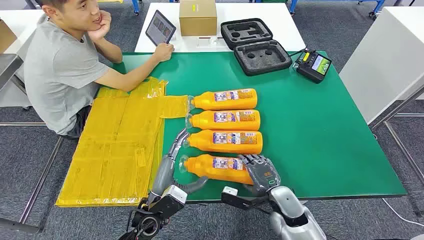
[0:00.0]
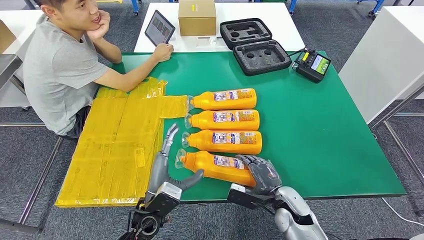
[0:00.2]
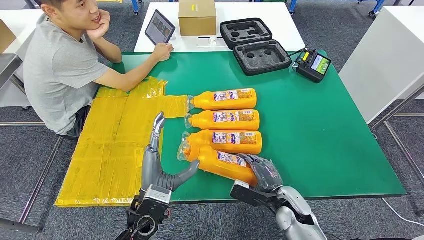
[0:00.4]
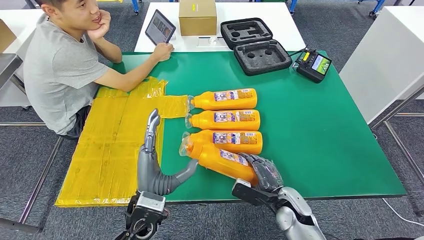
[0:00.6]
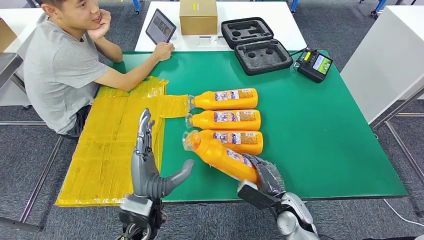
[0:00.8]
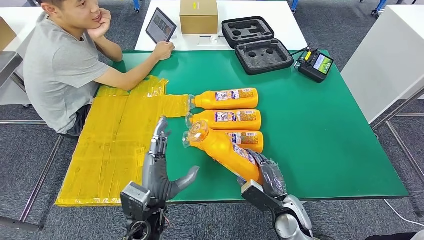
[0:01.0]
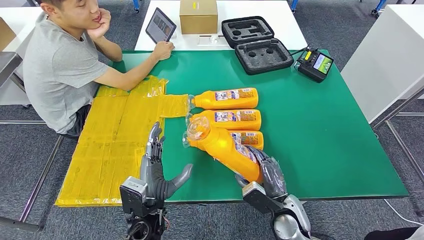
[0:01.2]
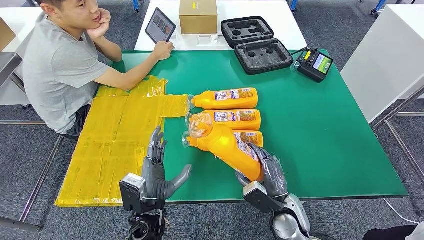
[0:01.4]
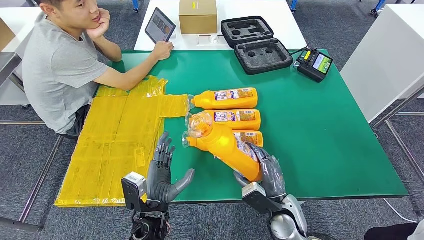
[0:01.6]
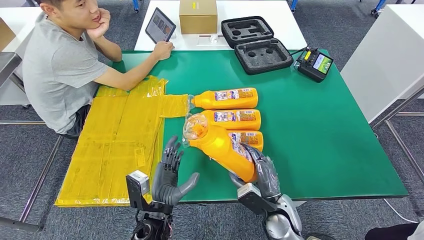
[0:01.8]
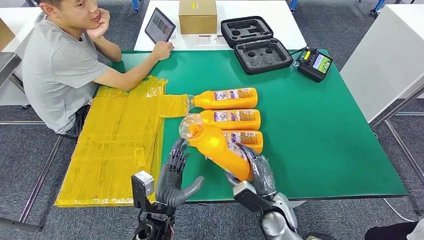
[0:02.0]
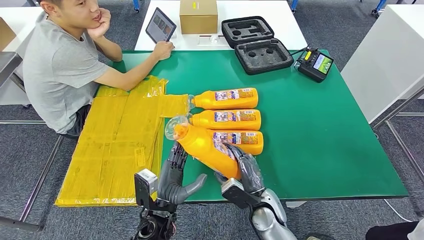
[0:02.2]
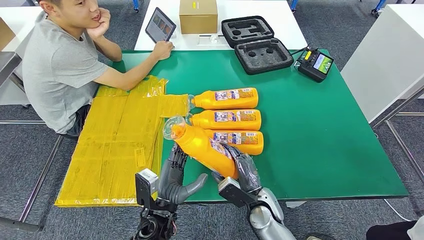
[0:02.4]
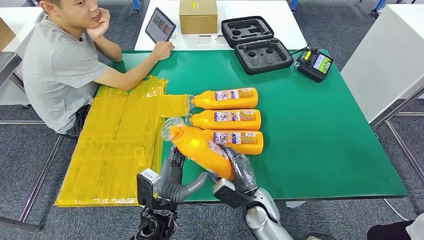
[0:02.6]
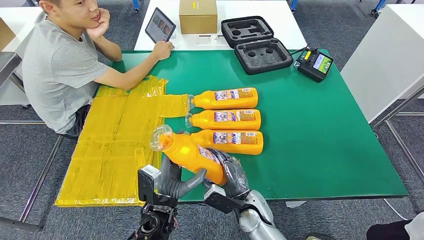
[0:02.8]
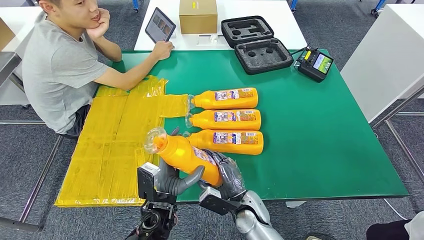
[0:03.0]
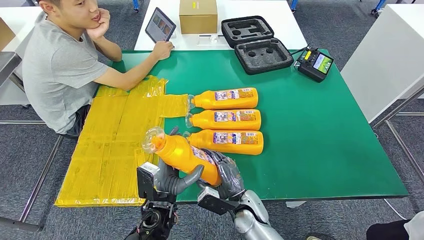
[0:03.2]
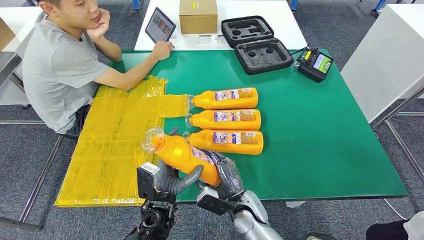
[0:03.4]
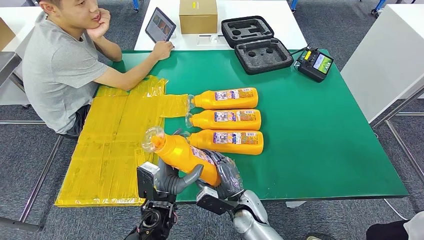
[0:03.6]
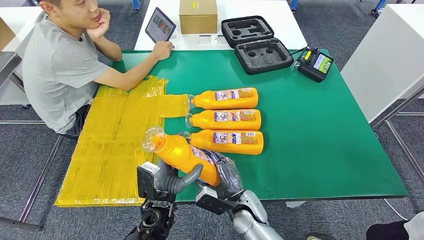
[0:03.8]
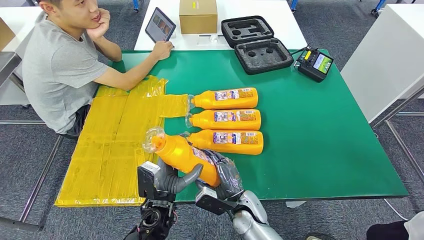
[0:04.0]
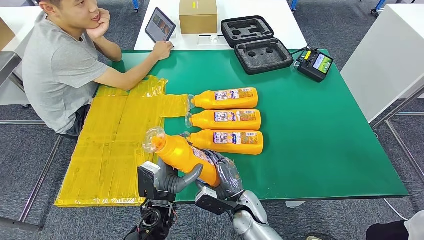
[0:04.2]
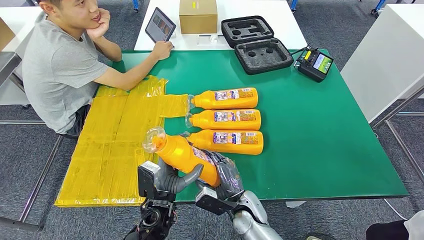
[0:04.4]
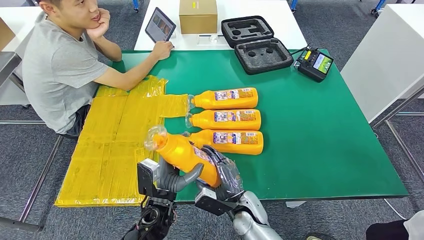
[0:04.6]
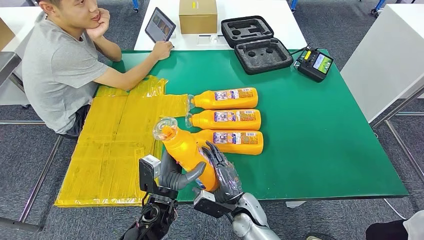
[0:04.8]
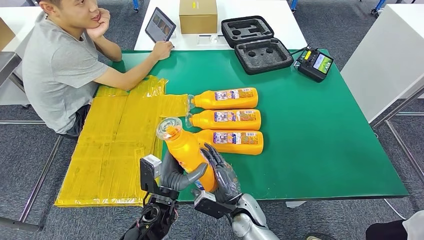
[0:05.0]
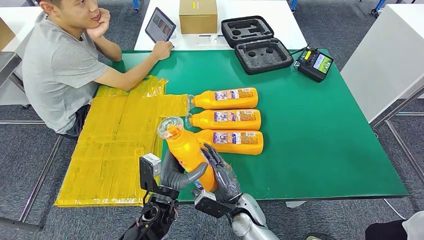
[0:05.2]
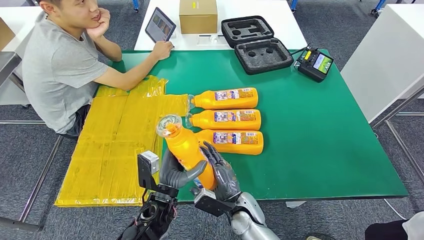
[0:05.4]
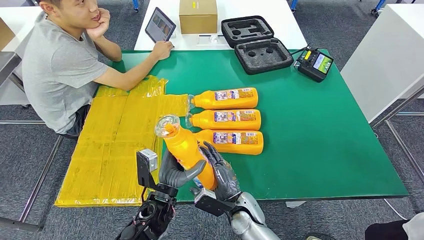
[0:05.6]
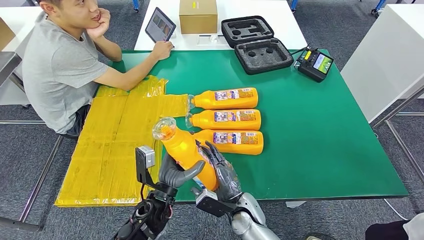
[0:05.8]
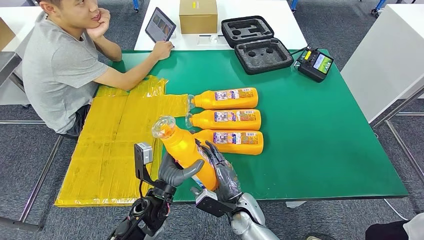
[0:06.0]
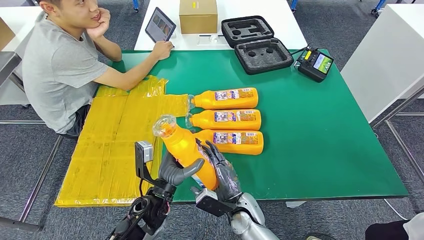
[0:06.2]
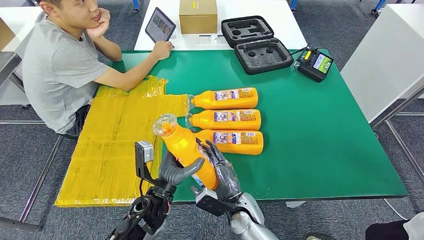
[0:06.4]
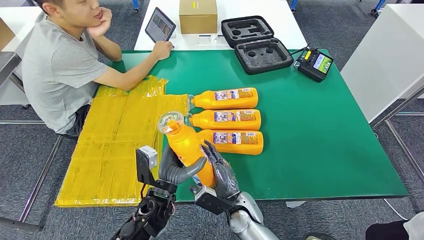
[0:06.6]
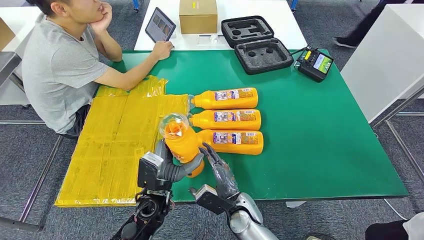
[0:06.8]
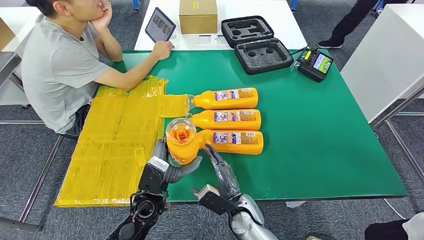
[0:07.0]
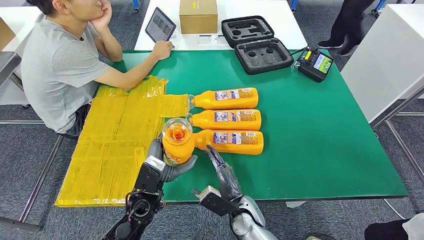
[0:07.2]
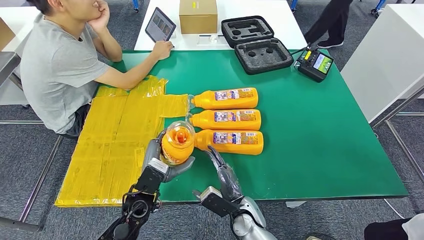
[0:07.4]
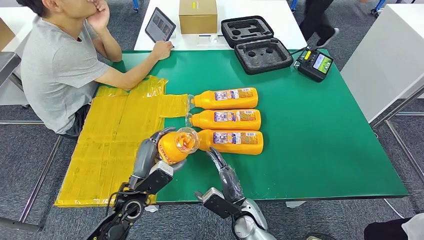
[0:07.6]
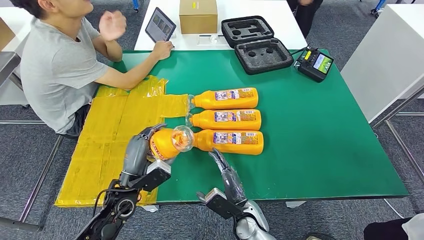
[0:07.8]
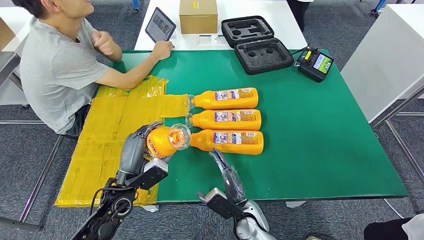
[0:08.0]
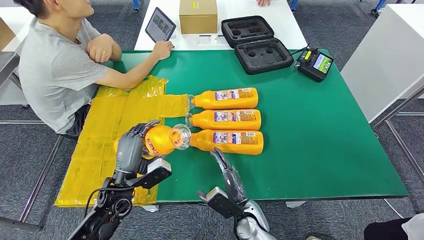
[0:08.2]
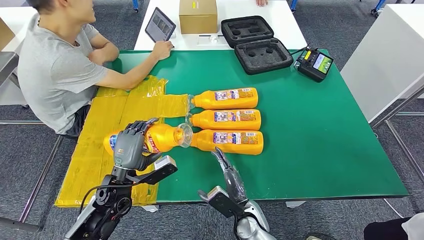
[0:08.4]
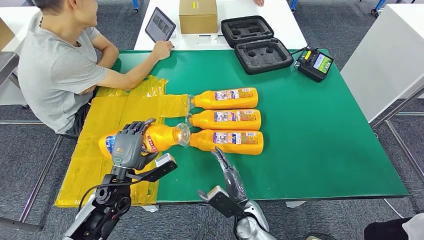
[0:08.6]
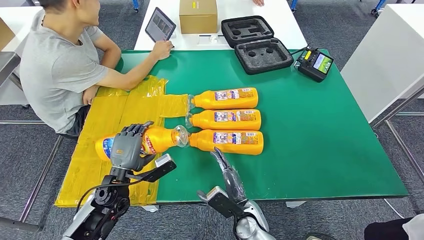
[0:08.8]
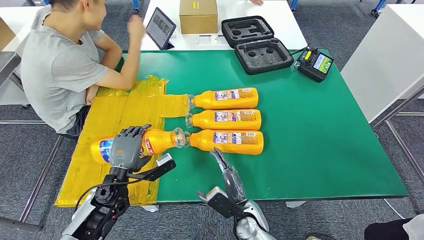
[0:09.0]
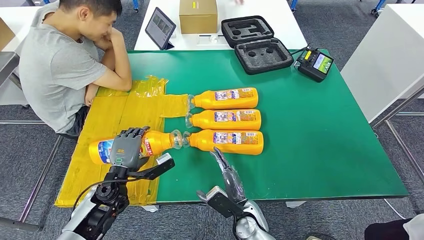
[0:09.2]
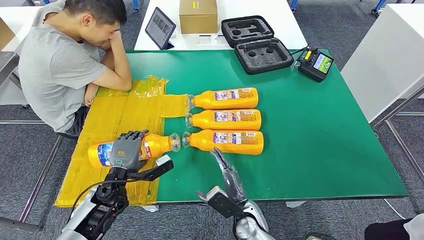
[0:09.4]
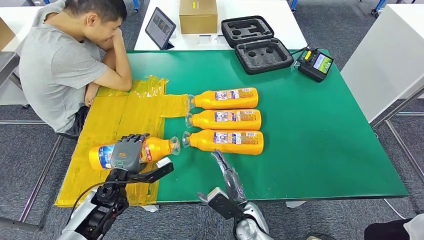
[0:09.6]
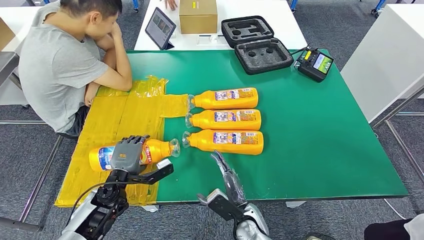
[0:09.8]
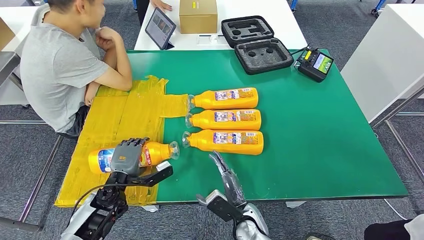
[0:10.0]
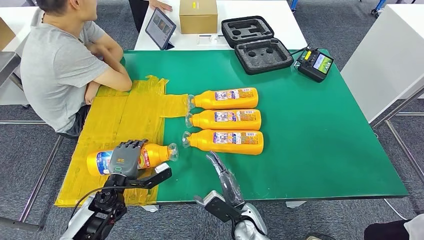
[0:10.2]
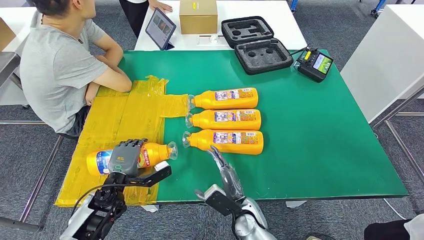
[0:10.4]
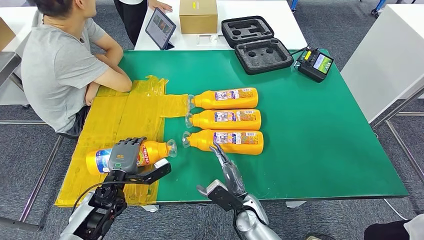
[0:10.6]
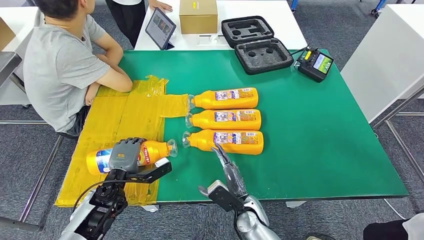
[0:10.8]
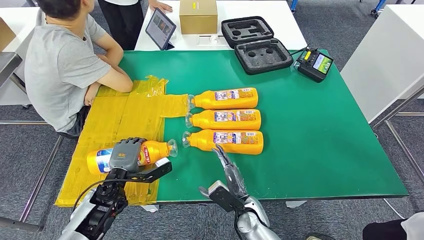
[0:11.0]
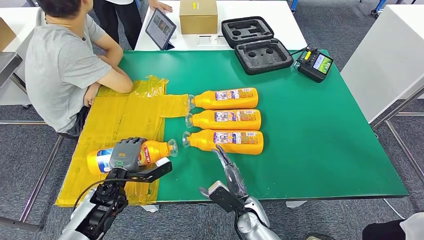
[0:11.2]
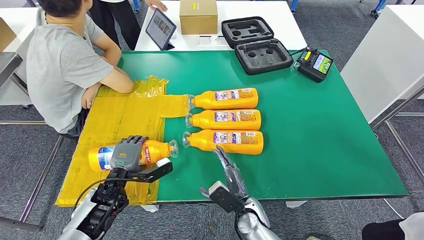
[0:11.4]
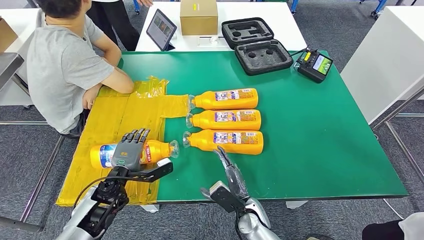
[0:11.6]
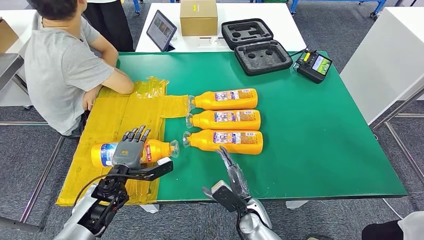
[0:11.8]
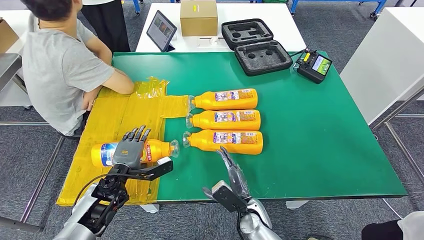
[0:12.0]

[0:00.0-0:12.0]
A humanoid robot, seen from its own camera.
Step, 0:00.0 to 0:03.4: Take the bottle from the table.
0:01.6 to 0:03.0: The right hand heads to the left, covering about 10 cm.
0:03.0 to 0:04.4: Neither hand changes place.
0:06.0 to 0:07.6: The left hand moves to the left, approximately 5 cm.
0:07.6 to 0:09.0: The left hand shifts roughly 5 cm to the left.
0:09.0 to 0:10.4: There are only small adjustments of the hands.

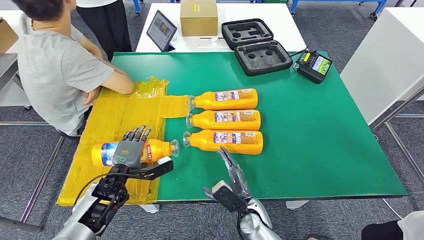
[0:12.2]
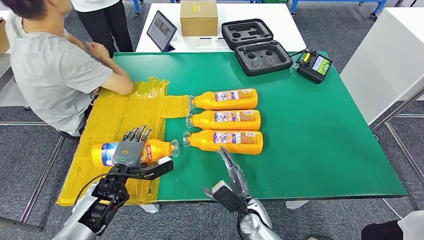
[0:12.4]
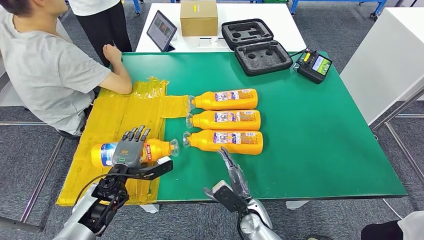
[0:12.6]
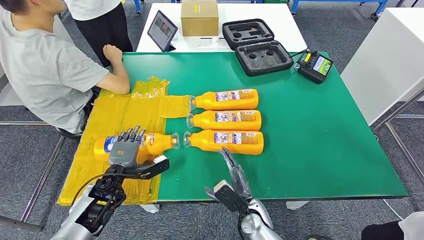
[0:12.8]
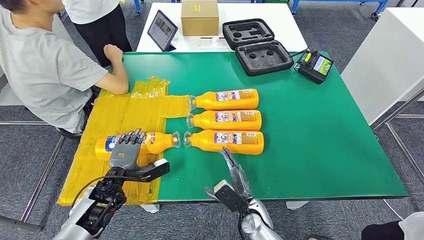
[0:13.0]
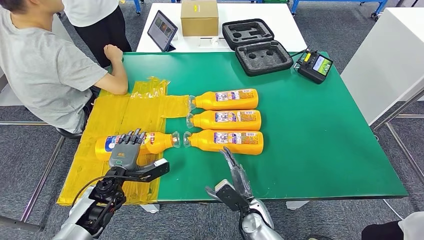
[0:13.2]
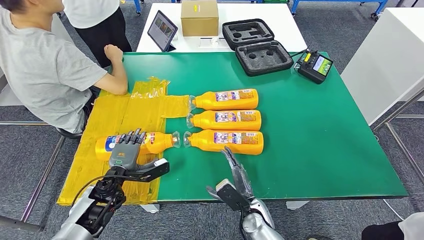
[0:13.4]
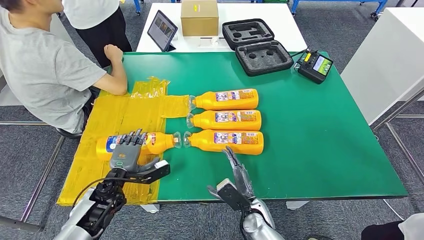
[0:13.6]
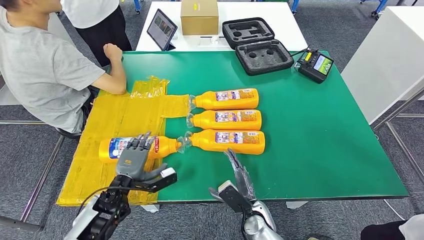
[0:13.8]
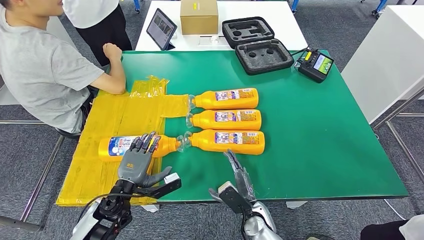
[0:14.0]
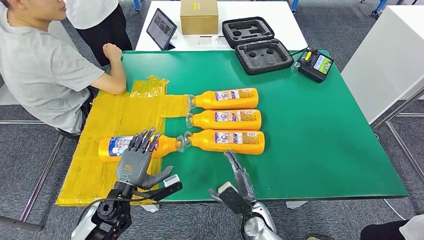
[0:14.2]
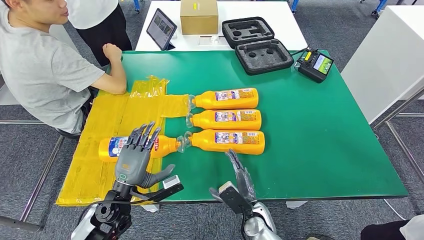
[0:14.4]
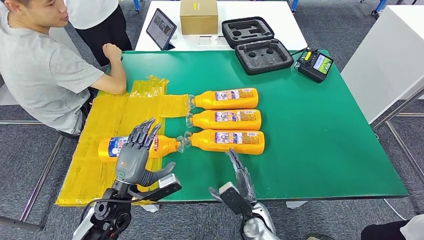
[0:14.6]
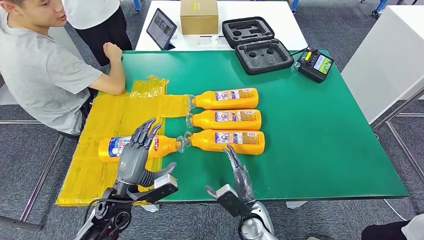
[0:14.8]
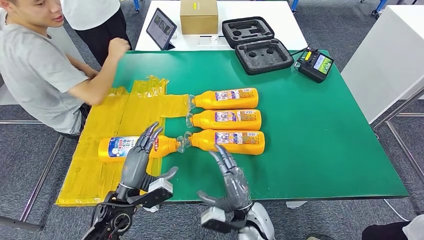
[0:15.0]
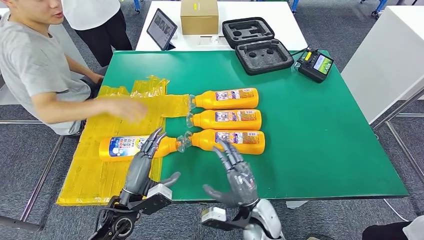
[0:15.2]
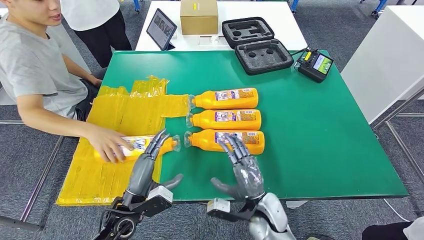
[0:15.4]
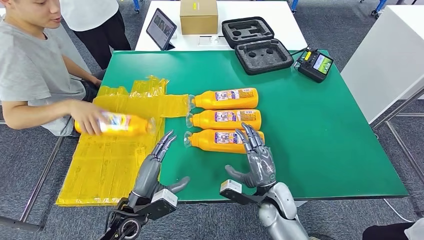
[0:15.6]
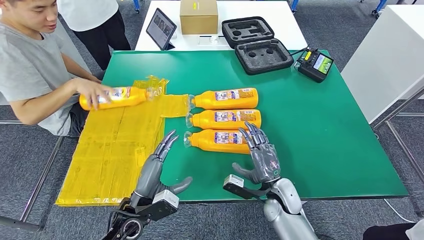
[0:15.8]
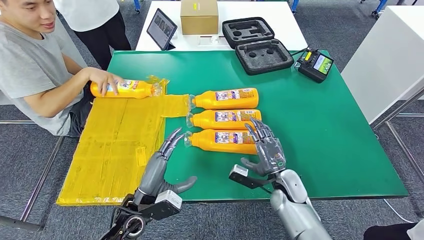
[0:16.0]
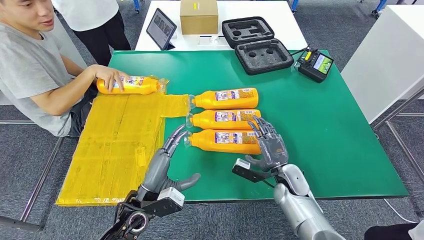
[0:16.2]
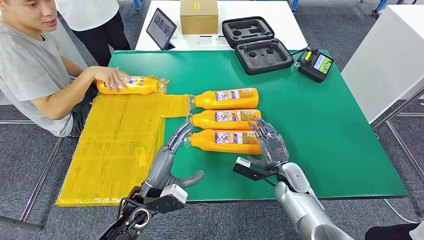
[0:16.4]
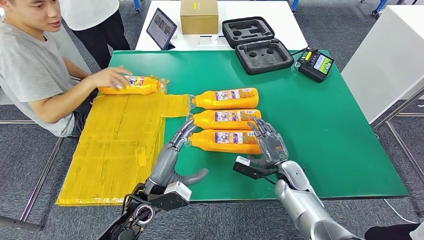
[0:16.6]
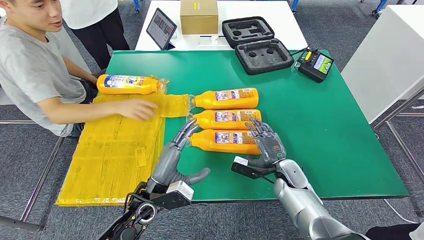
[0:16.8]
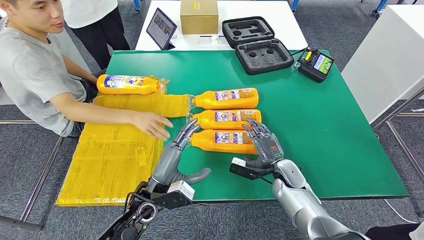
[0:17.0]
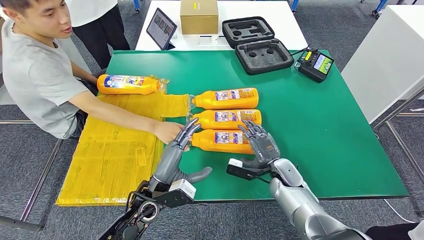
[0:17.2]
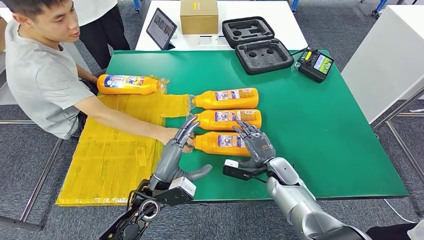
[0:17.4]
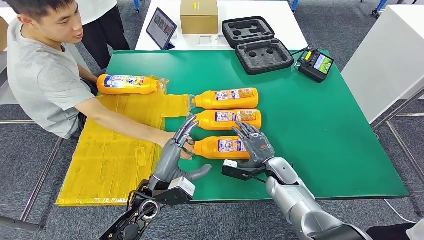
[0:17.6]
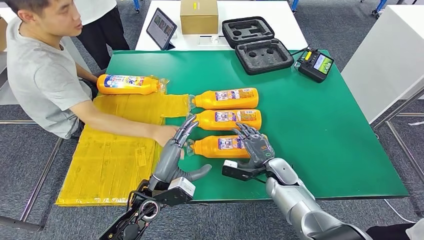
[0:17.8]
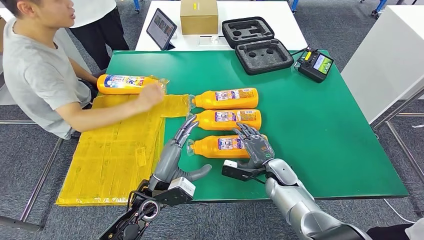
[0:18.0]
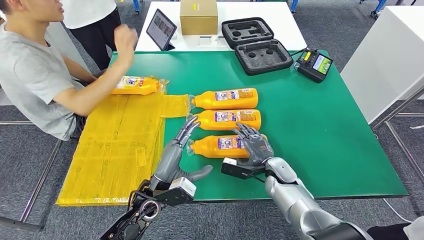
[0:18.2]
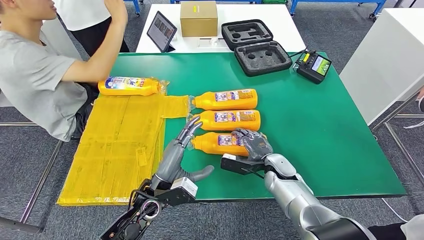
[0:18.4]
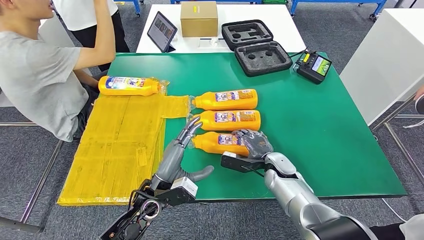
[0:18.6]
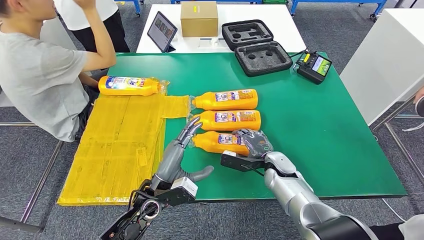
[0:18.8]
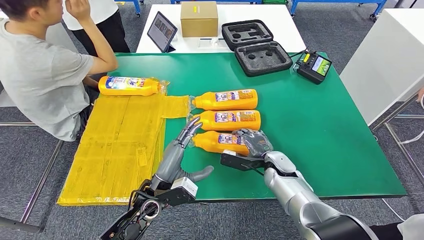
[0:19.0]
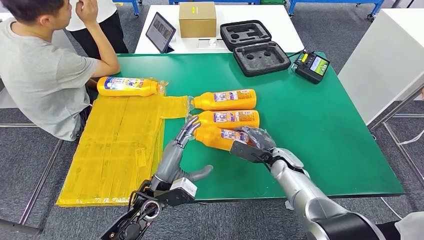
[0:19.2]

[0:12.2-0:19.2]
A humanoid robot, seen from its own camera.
Step, 0:12.2 to 0:14.6: Flip the bottle to face forward.
0:12.2 to 0:13.6: The hands make only small movements.
0:16.4 to 0:17.8: The hands make only small movements.